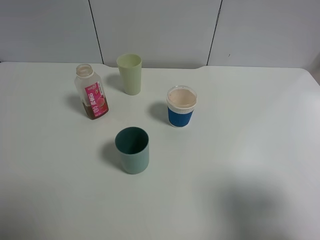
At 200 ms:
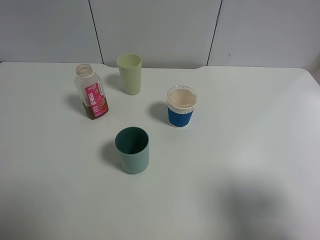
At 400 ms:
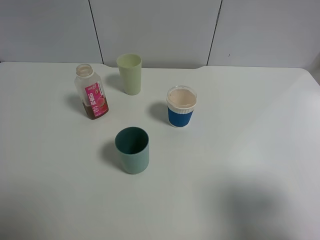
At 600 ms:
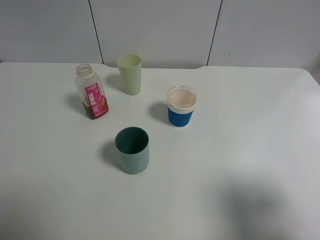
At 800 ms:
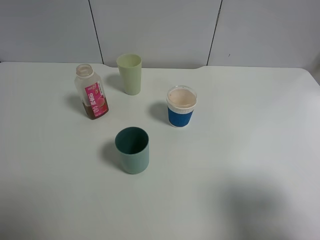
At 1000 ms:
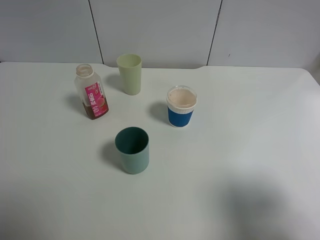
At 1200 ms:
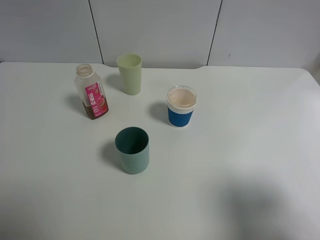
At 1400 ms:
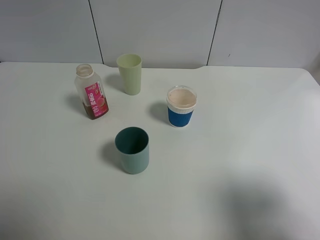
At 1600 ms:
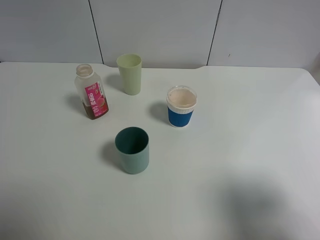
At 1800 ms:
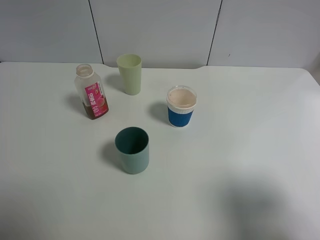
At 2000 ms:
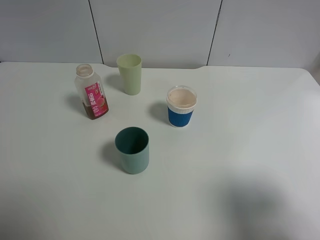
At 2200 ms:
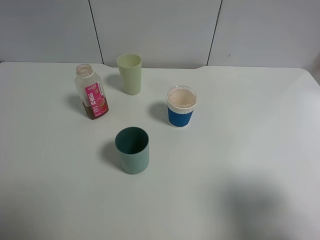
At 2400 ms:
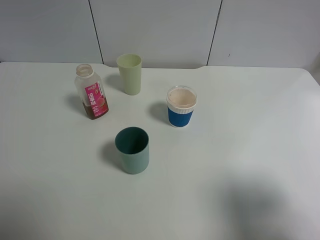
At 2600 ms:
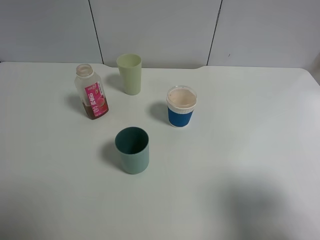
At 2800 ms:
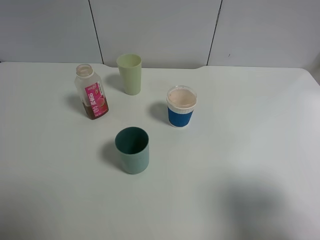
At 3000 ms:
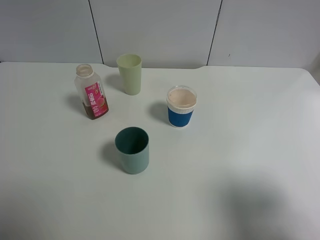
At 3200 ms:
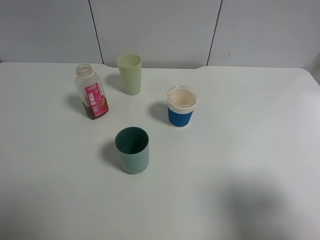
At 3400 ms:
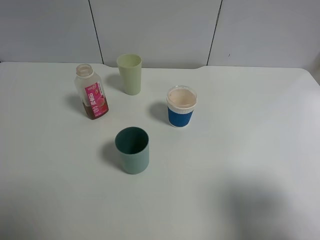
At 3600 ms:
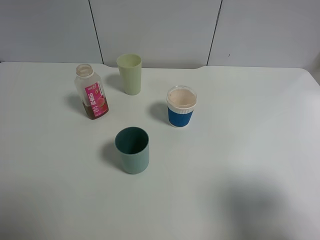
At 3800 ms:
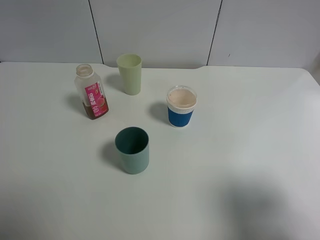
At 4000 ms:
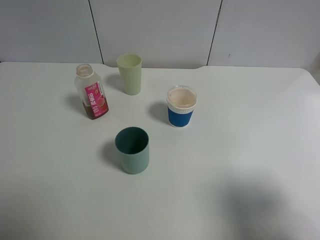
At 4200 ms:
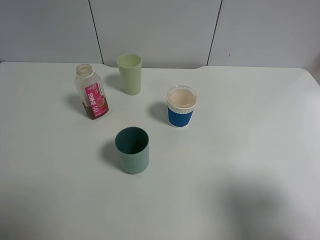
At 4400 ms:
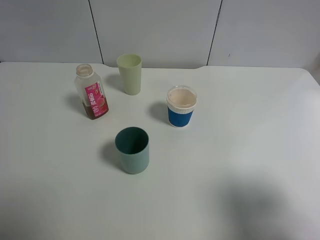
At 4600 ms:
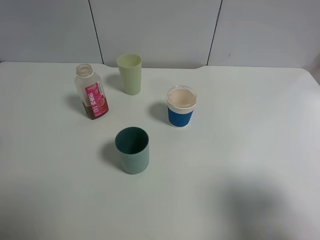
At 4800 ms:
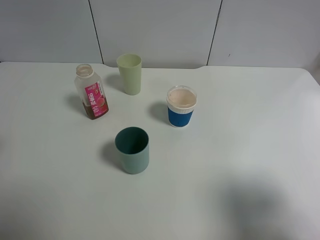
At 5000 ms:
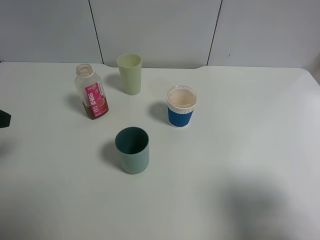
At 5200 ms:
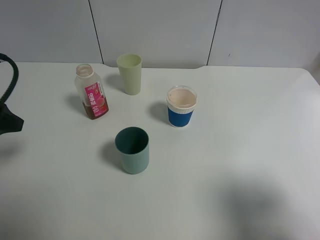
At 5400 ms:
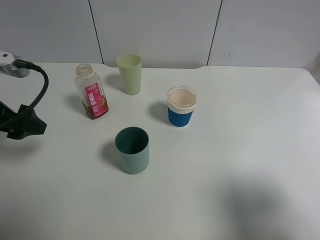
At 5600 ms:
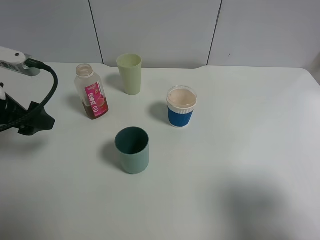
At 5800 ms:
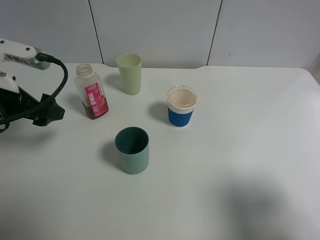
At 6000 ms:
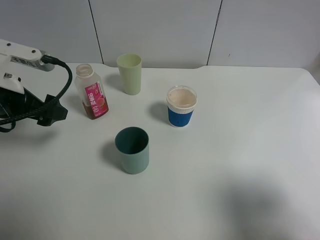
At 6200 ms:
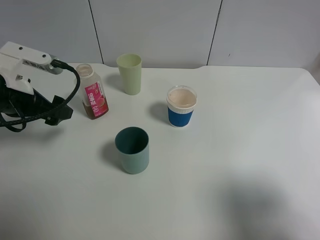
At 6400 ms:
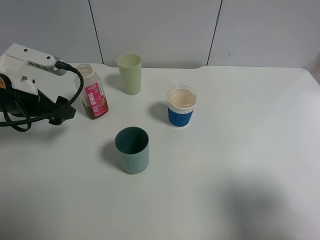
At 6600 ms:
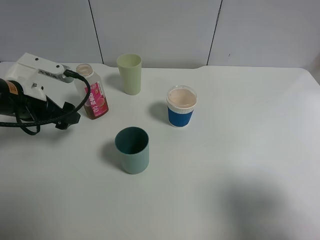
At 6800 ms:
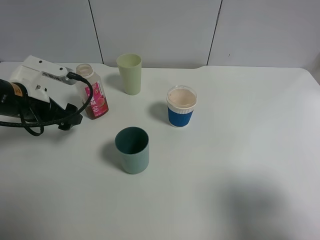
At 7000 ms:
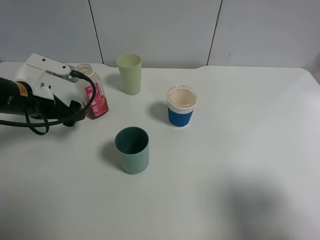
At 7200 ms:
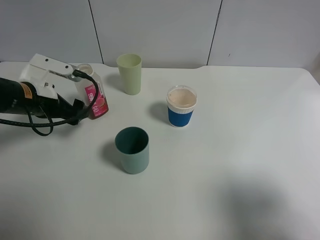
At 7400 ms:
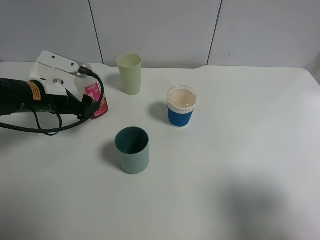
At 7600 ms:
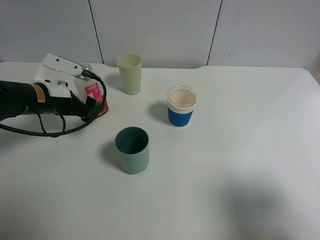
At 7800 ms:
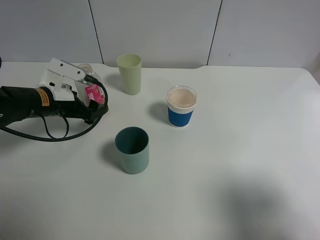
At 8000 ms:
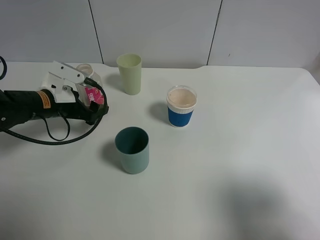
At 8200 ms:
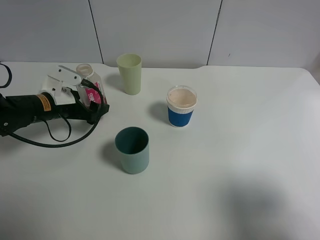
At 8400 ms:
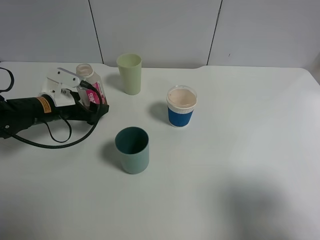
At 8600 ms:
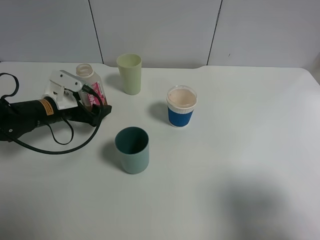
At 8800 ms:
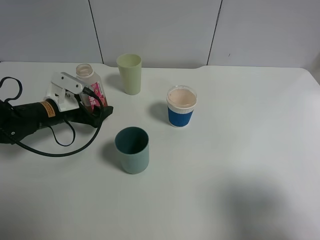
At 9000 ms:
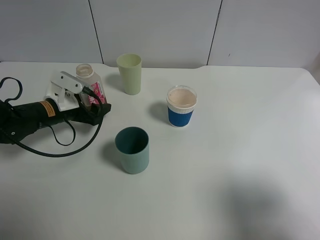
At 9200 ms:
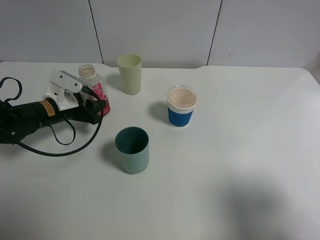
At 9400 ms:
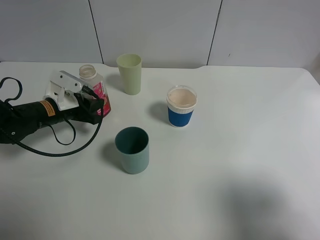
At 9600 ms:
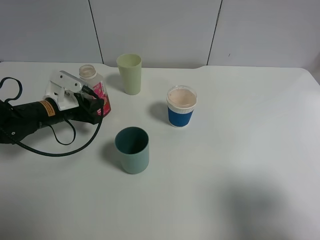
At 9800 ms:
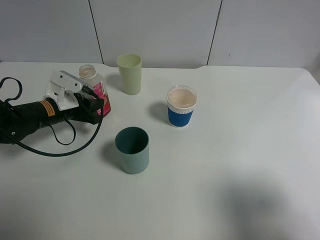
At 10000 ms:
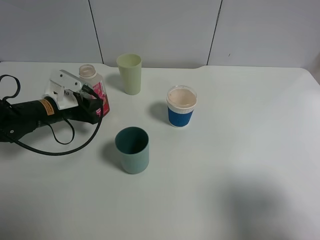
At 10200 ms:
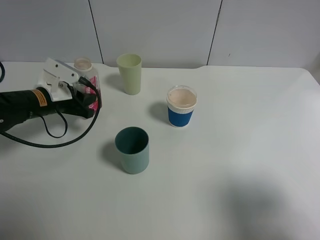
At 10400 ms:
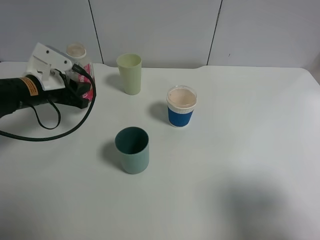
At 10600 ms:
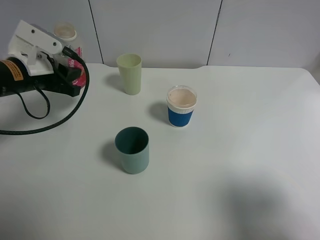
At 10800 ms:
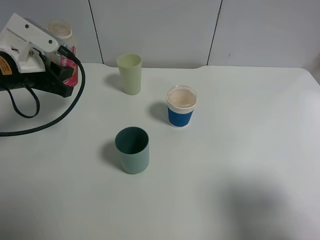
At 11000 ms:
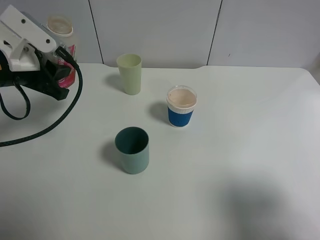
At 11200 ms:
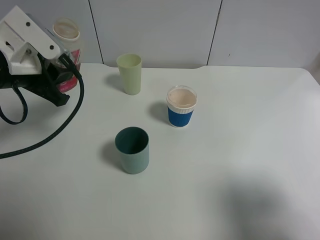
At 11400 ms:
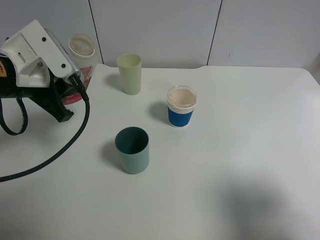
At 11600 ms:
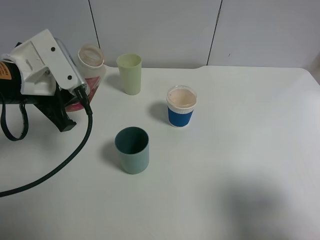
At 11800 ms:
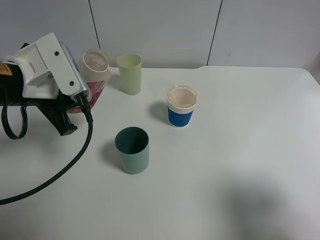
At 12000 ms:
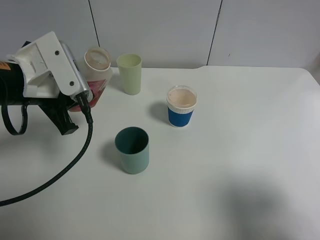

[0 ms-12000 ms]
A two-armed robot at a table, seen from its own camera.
Task of the whole recording: use a gripper to hold the bottle of the drink and pour it into a random cup.
Step, 0 ms to 9400 ms: Grasp the cranberry juice bottle with the left gripper.
0 ms to 3000 ms: The two grippers keep their place.
4400 ms to 6000 ms: The left gripper moves forward, downward and to the right, approximately 15 cm.
6000 ms to 7600 ms: The left gripper moves downward and forward, roughly 10 cm.
7600 ms to 9000 ms: The left gripper heads downward, covering roughly 5 cm, and closes its fingers.
9000 ms to 10400 ms: The left gripper shifts roughly 5 cm upward, and closes.
10400 ms to 12000 ms: The left gripper moves backward and upward, about 10 cm.

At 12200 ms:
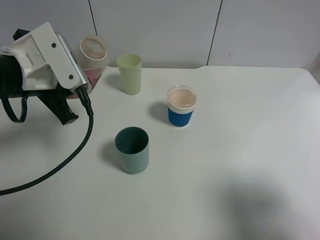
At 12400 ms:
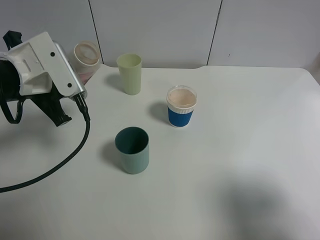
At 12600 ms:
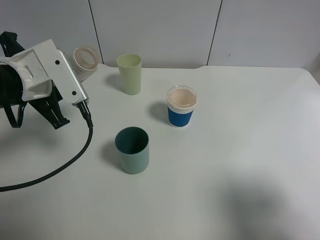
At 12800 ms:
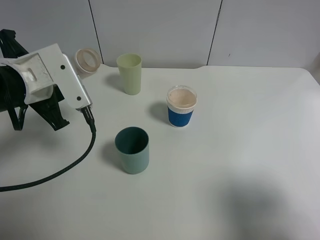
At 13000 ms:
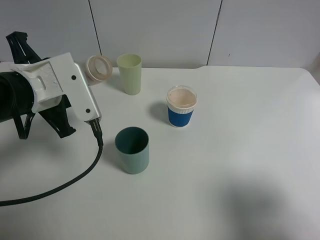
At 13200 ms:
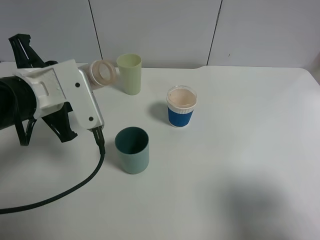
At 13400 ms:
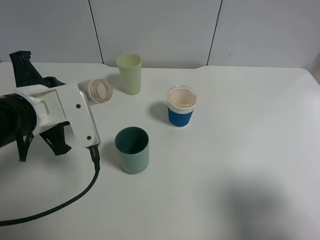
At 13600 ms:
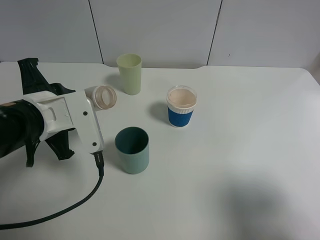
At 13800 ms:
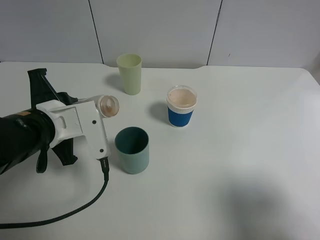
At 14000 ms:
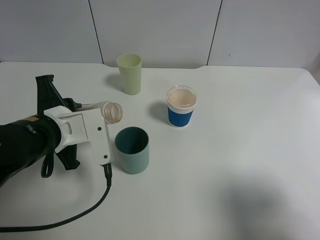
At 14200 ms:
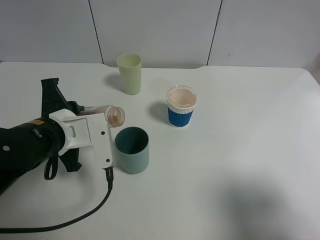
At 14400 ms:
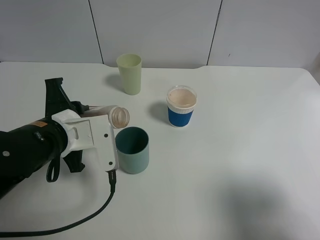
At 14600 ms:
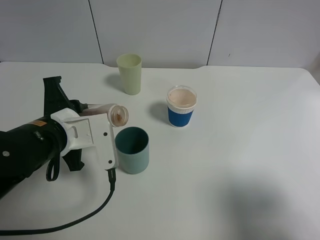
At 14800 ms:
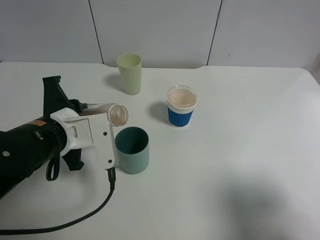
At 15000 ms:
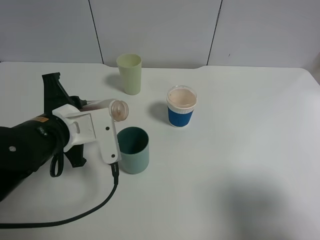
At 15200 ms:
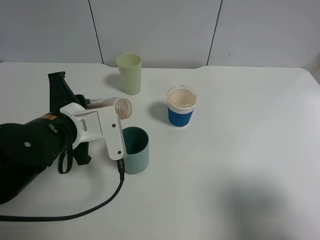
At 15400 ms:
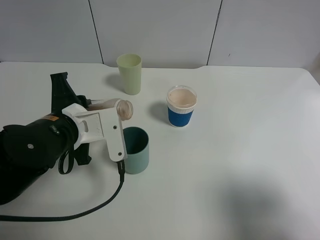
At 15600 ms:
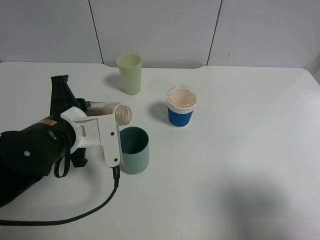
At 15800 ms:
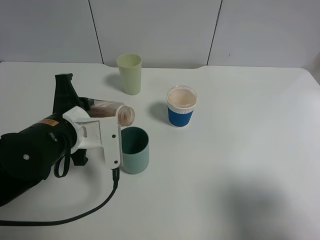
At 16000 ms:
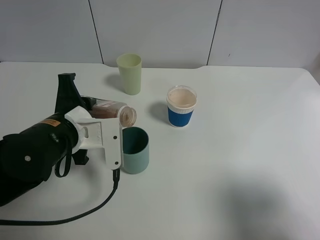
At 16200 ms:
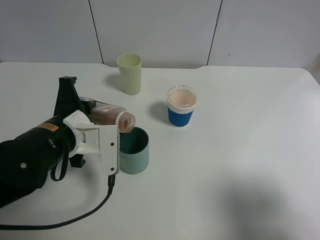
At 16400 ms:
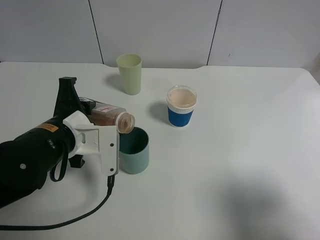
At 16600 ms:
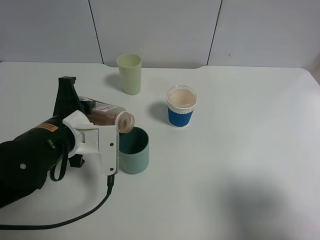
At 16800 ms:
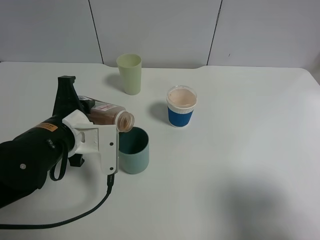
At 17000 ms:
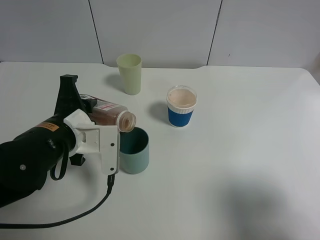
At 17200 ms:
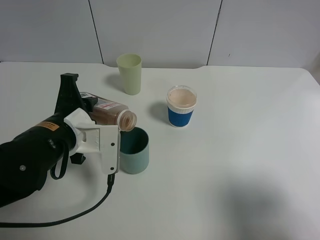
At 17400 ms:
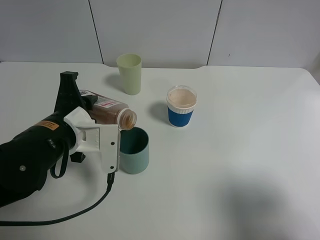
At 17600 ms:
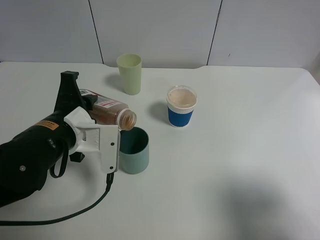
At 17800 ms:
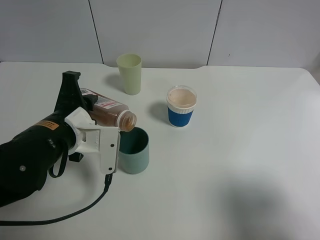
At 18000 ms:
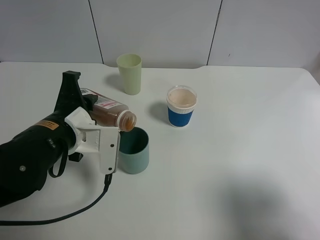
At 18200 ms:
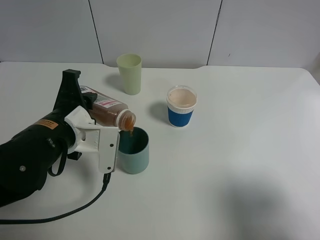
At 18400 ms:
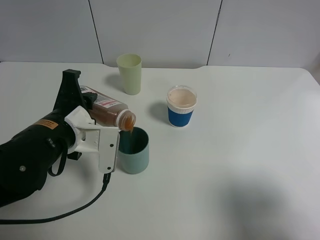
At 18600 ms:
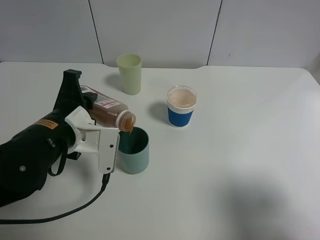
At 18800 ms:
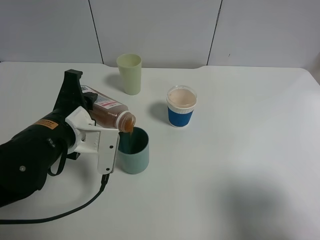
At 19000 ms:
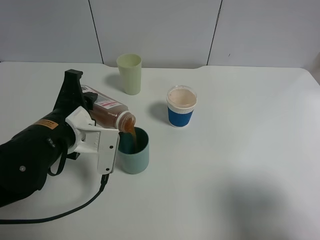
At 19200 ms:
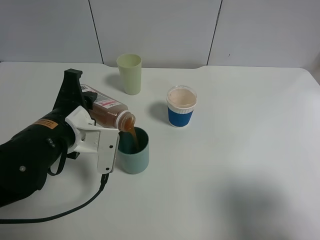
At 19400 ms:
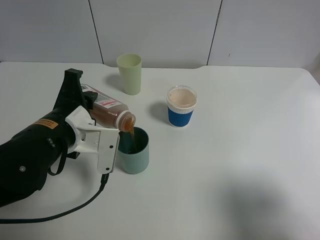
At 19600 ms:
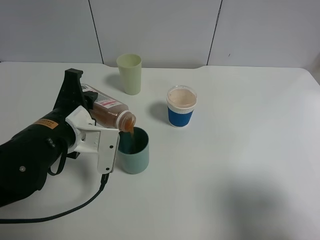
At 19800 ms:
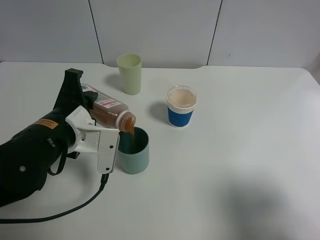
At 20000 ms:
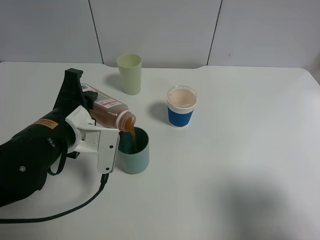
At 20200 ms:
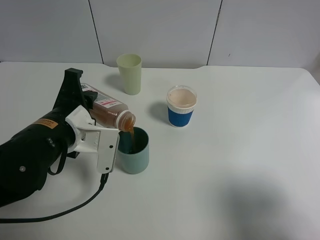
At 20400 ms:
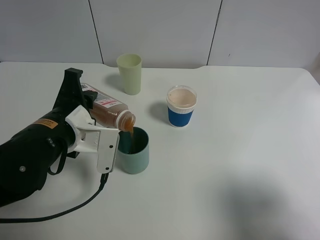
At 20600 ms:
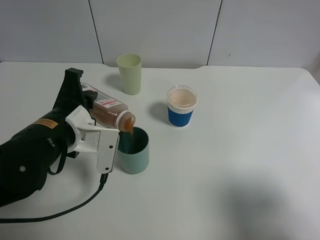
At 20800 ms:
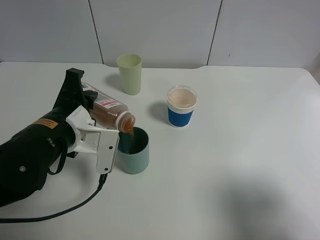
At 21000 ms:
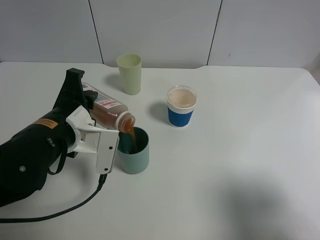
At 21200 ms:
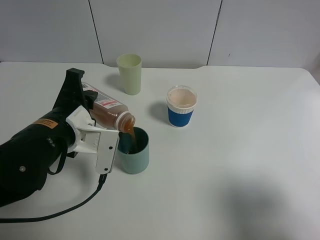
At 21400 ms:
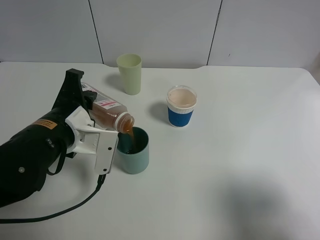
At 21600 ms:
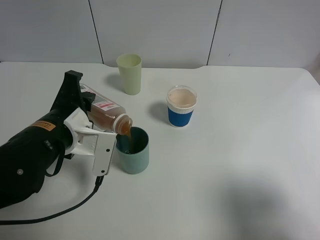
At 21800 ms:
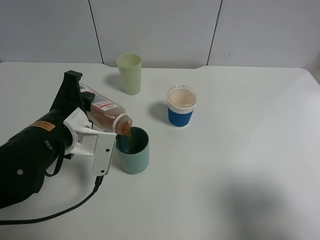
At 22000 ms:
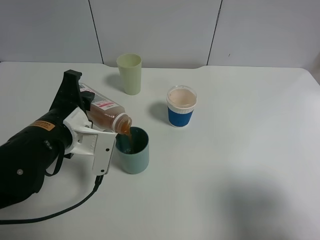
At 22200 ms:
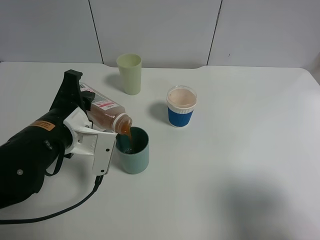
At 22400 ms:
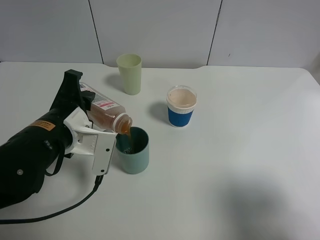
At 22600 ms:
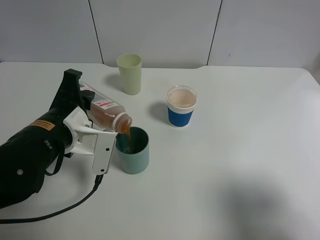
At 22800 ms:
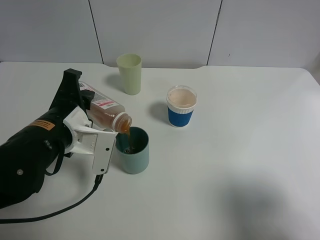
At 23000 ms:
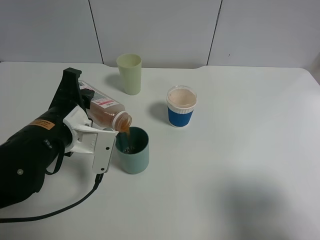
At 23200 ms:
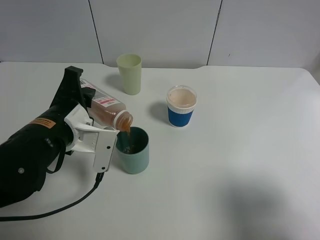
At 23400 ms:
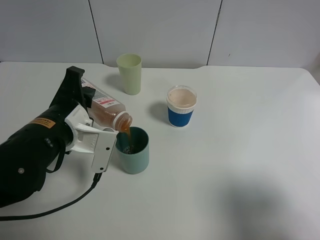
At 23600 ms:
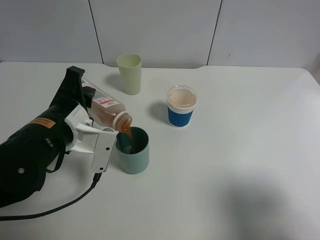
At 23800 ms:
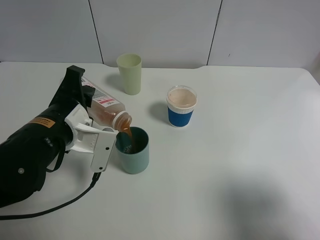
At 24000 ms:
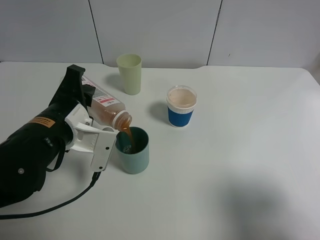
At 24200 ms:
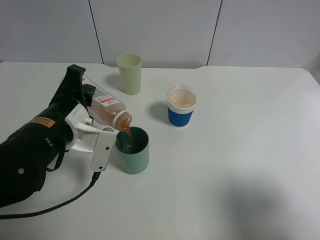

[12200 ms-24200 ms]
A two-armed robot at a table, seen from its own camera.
Task of the whole recording: use a gripper to hold the bottle of the drink and pour it into a random cup.
12200 ms to 13800 ms: The left gripper is displaced downward and backward by approximately 10 cm.
13800 ms to 16600 ms: The grippers make only small movements.
16600 ms to 18200 ms: There are only small adjustments of the grippers.
18200 ms to 19800 ms: Both grippers stay put.
19800 ms to 22600 ms: Neither gripper changes place.
22600 ms to 24200 ms: There are only small adjustments of the grippers.
